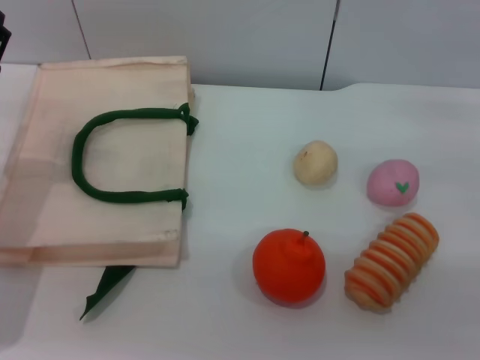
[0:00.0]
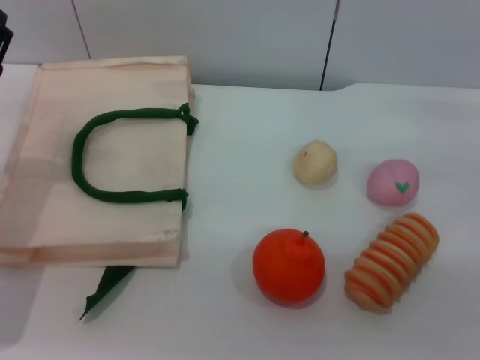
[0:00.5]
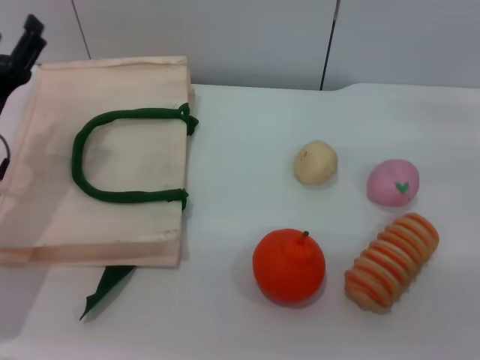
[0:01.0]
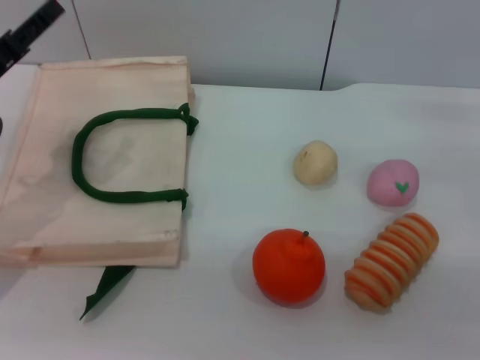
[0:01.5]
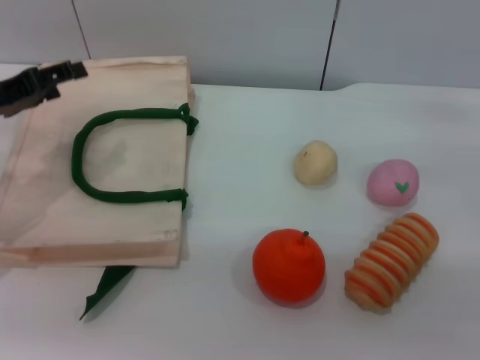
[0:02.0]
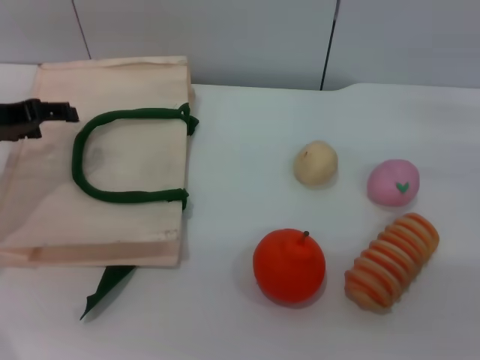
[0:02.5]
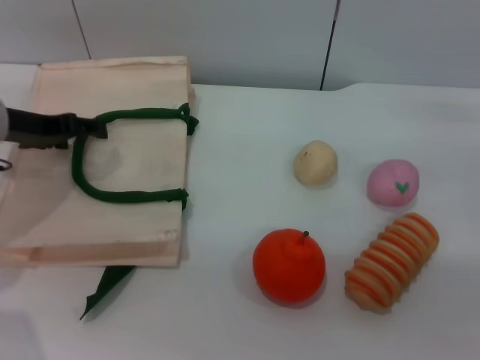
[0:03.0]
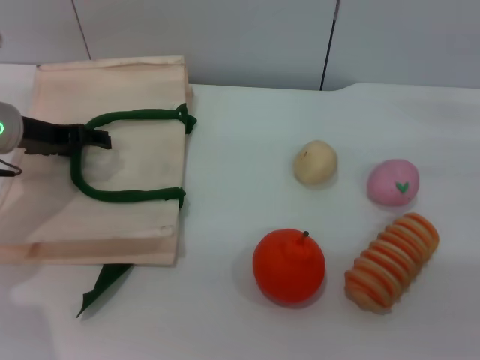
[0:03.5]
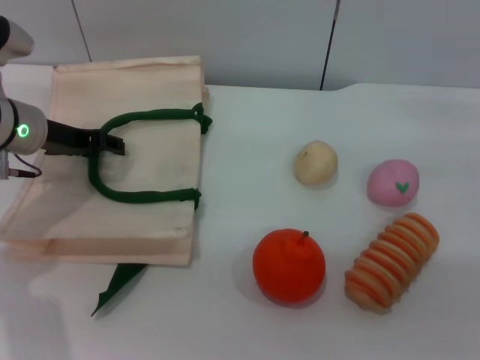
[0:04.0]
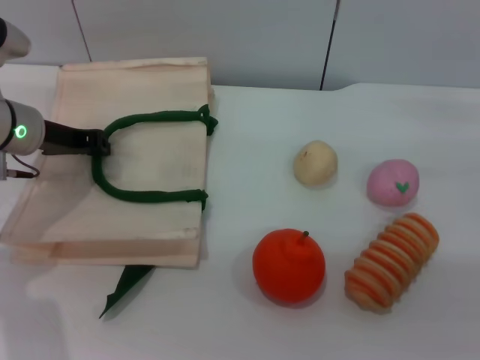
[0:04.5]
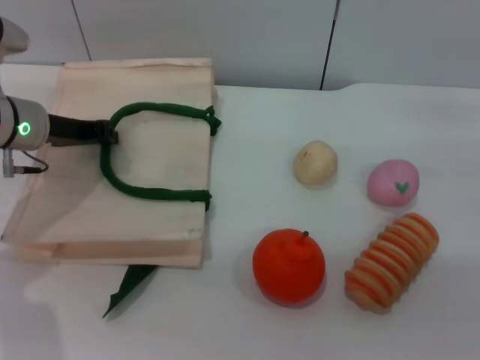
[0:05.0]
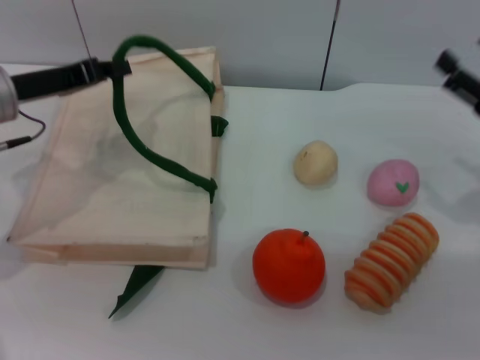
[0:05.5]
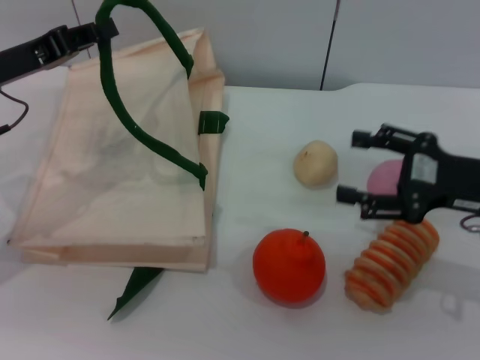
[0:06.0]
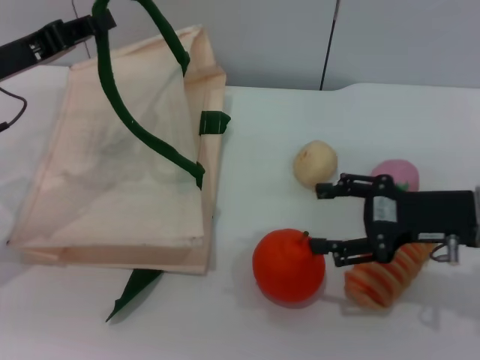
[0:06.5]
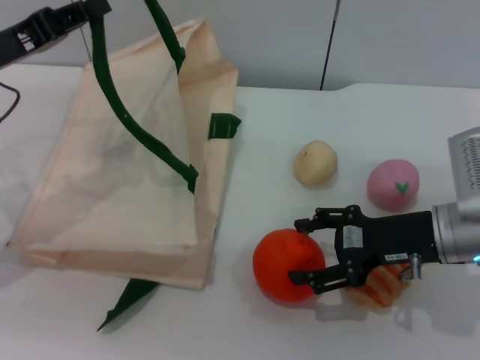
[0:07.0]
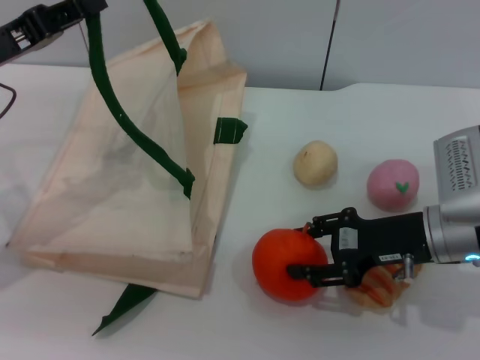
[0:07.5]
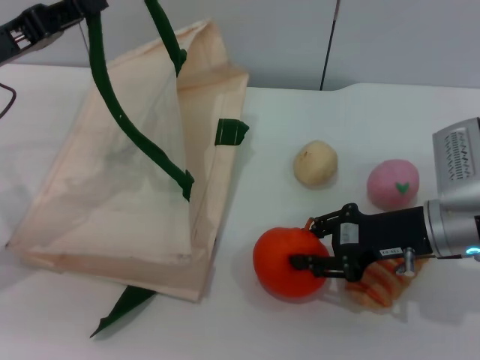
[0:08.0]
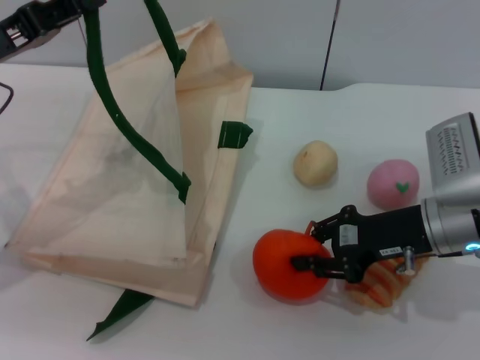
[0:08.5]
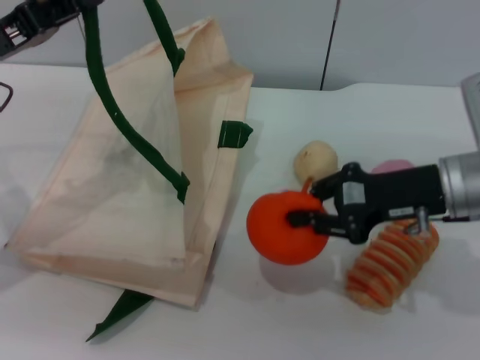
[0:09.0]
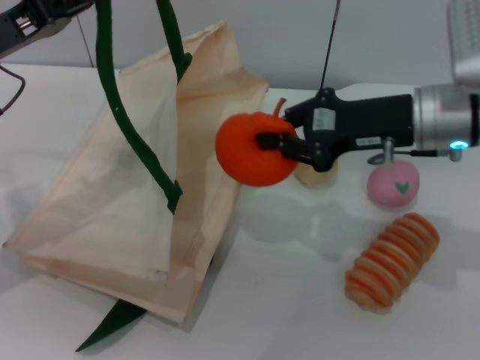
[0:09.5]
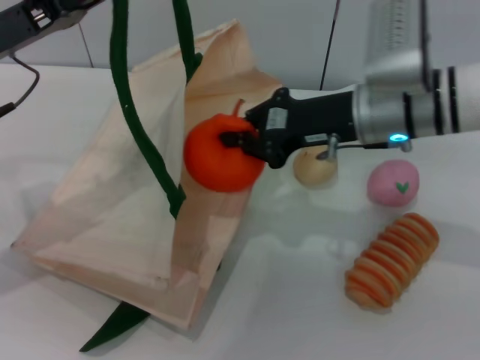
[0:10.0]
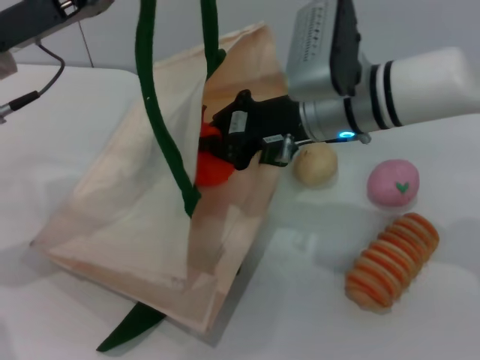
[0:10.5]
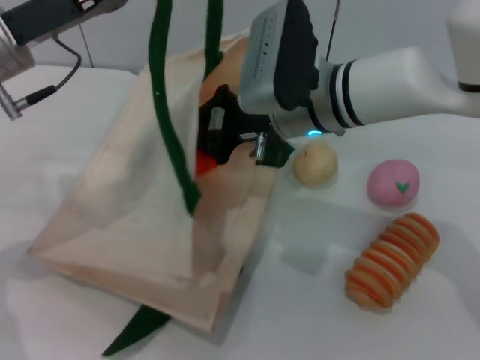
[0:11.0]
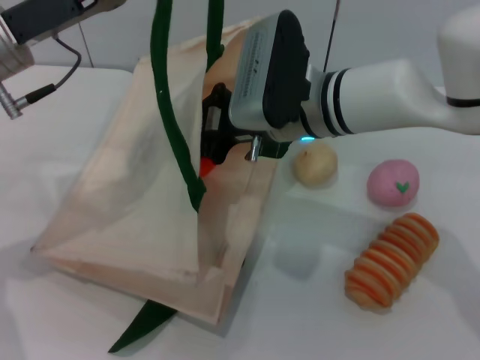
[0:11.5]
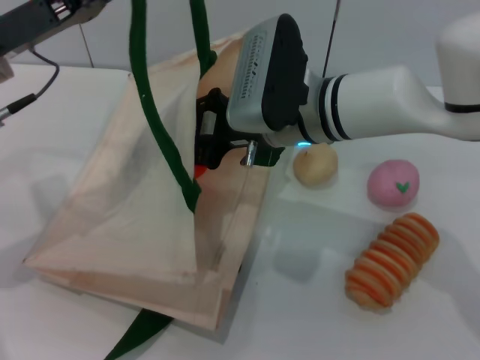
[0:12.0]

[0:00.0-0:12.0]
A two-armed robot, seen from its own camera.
Task of the whole recording: pick up the orange and peach from the table and place it in the white handbag.
Step, 0.0 to 5.5 s: Lift the woven bag with the left gripper to open it.
Step, 6.0 to 9.0 s: Pick up the orange with the right gripper.
0.0 to 2.0 s: The left gripper travels upward by roughly 5 cm.
2.0 to 4.0 s: The left gripper heads to the right and forward, covering some 10 cm.
4.0 to 6.0 s: The left gripper changes place by roughly 5 cm, and closes its fingers. Meanwhile the right gripper moves to the left, roughly 5 cm.
6.0 to 8.0 s: The right gripper is displaced to the left by approximately 5 cm, and closes its fingers.
8.0 to 10.0 s: The right gripper shifts some 15 cm to the left, upward and forward, and closes up.
10.0 to 12.0 s: The right gripper moves to the left, approximately 10 cm.

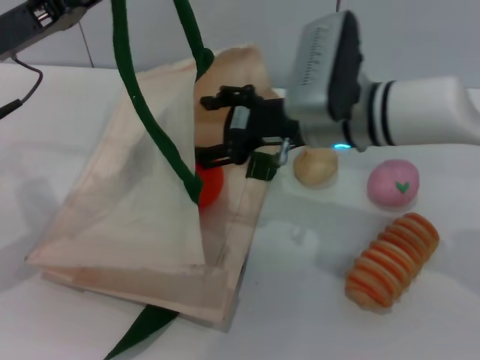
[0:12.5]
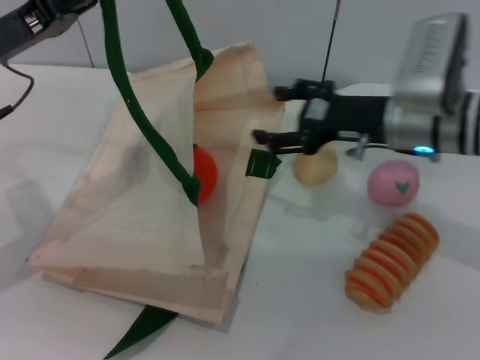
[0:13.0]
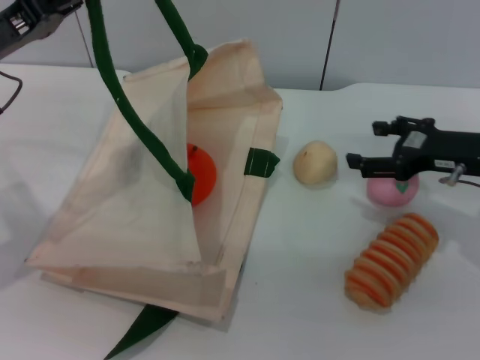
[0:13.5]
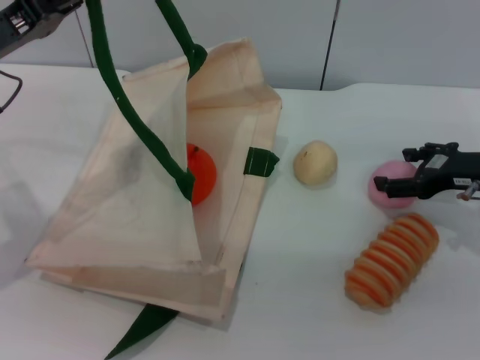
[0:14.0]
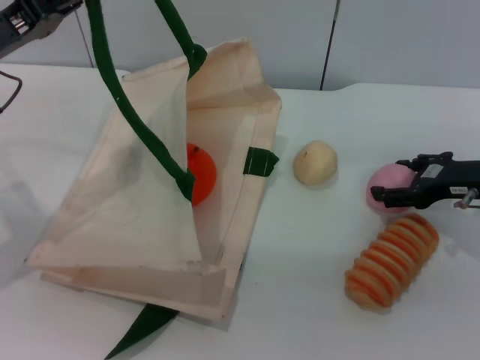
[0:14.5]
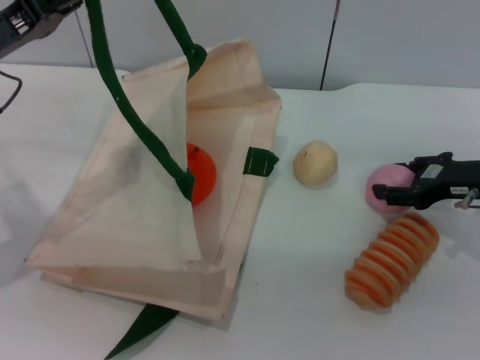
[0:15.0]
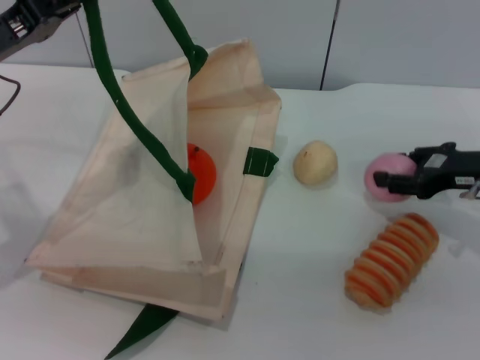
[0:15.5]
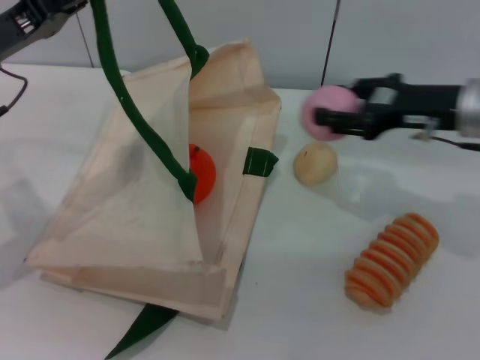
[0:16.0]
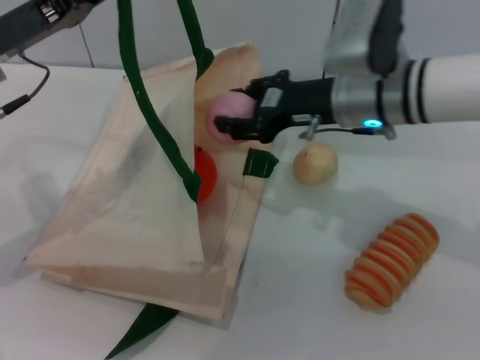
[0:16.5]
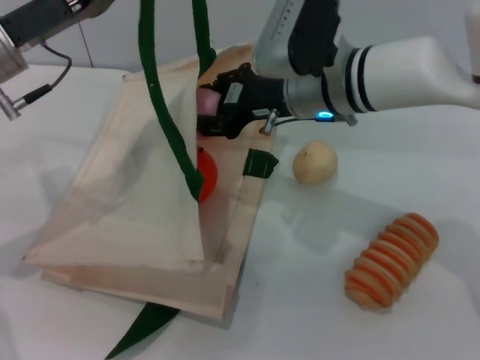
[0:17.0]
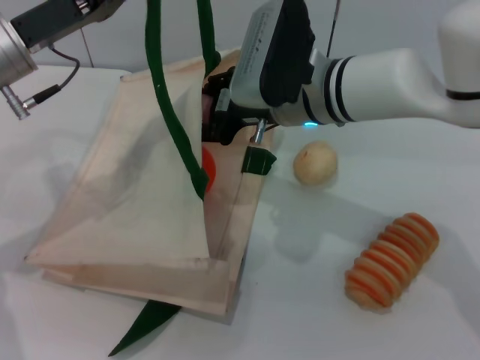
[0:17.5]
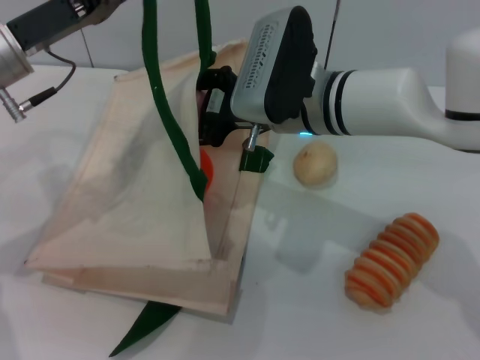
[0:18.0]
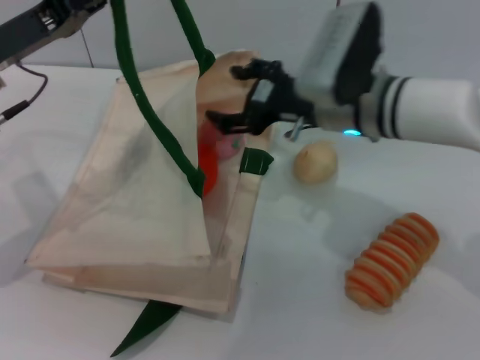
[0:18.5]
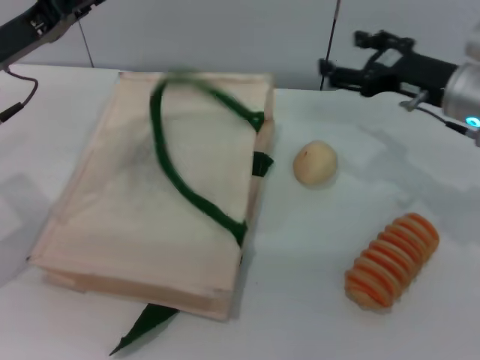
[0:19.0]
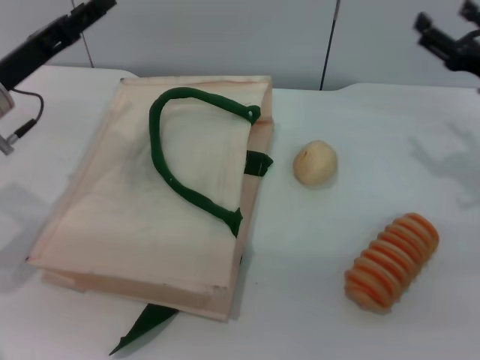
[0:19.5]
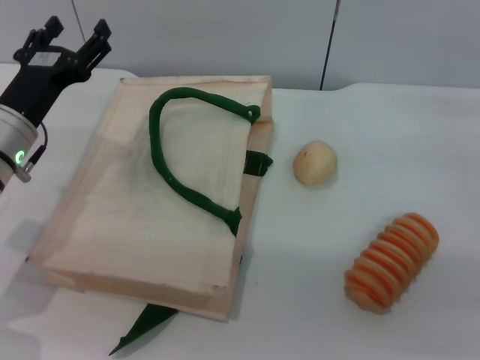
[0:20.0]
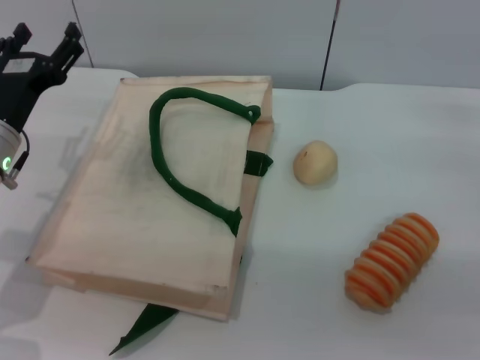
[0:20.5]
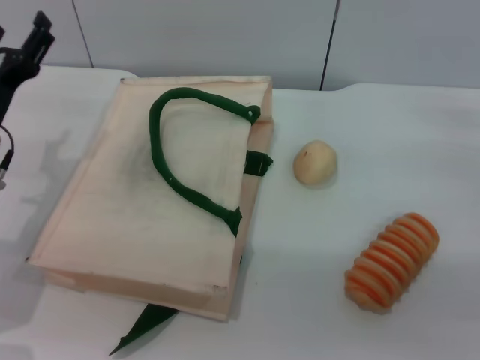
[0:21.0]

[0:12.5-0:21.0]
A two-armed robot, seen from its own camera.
Task of the whole recording: pick up the orange and peach from the table and place it in the white handbag.
Step, 13.0 to 15.5 s: Pick up the peach with the right gripper.
Step, 16.0 to 18.5 s: Place the peach into the woven bag with the right gripper.
12.5 to 14.5 s: The right gripper heads to the right, covering some 20 cm.
14.5 to 16.5 s: The right gripper travels to the left by approximately 15 cm, and closes.
16.5 to 19.0 s: The right gripper moves to the right, roughly 10 cm, and opens.
19.0 to 21.0 s: The left gripper goes some 10 cm downward, and opens. Meanwhile the right gripper moves to the right, backward and downward, roughly 15 cm.

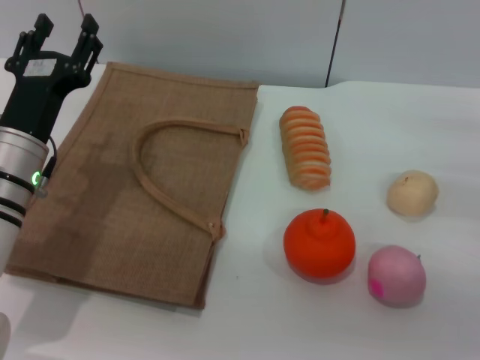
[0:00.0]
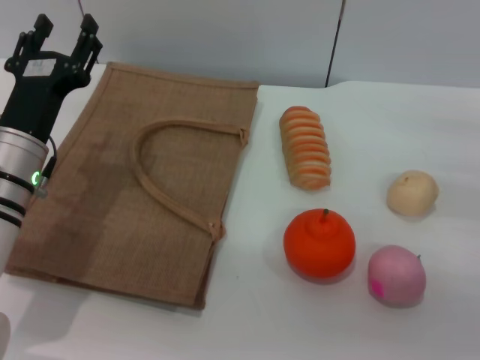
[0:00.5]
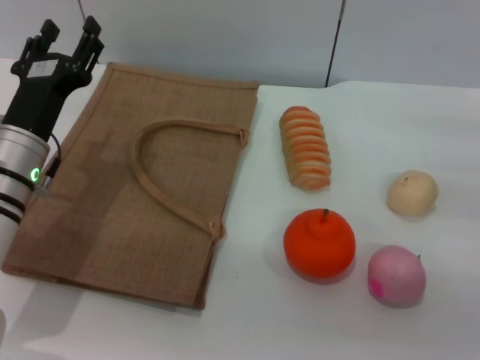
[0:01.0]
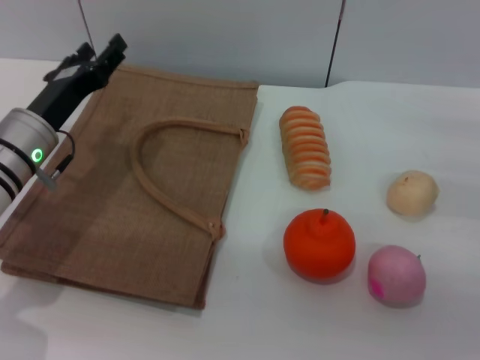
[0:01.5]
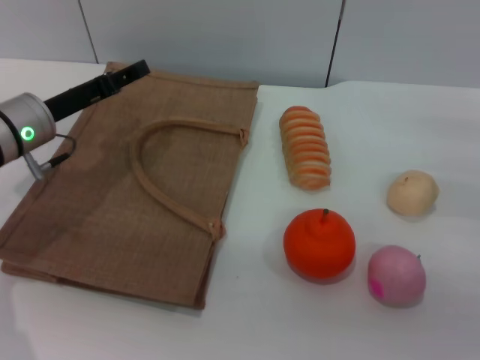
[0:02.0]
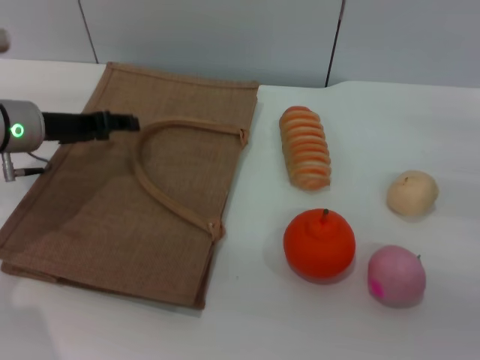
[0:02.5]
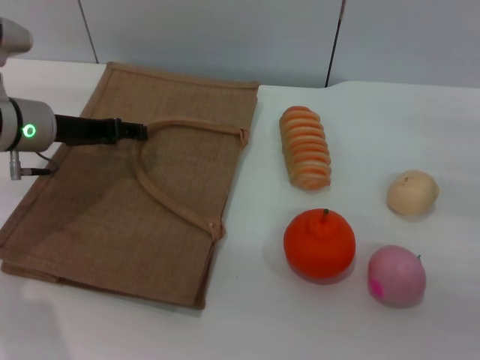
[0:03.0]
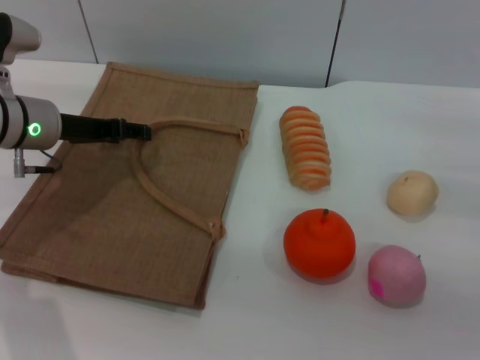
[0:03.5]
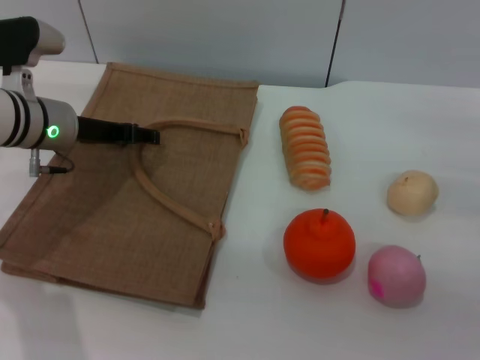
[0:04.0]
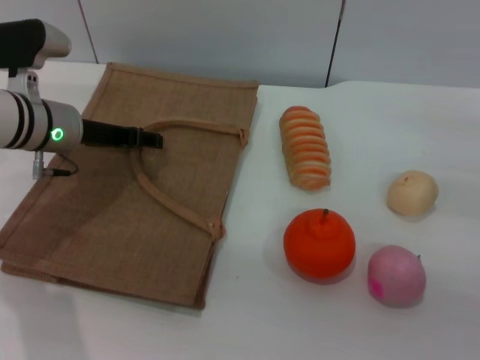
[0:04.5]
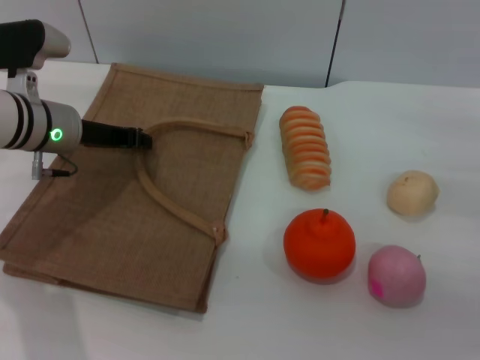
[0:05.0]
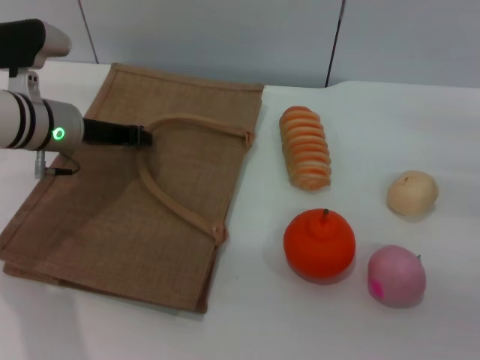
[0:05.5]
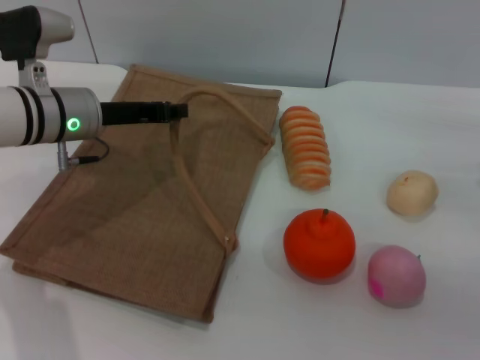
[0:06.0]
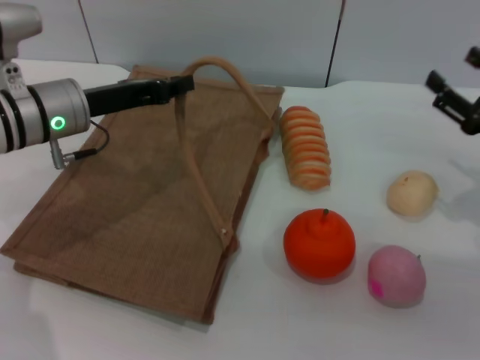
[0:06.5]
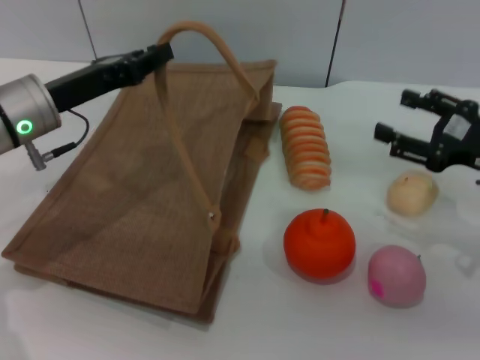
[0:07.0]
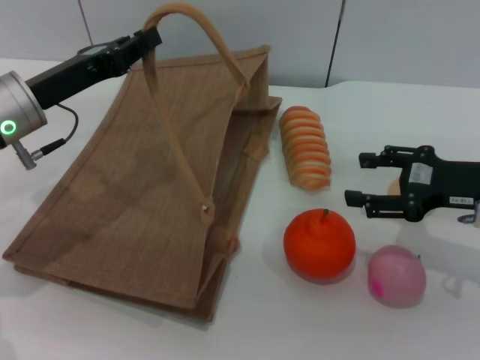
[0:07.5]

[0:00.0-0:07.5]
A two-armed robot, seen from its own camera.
Task of the whole recording: pick up the orange and peach from the table and place it in the brown handbag.
Step, 0.0 to 6.0 s: Lift the woven bag with the left gripper to open it.
0.0 to 2.0 s: The left gripper is displaced forward by some 5 cm.
4.0 to 5.5 s: The left gripper closes.
5.5 to 7.5 s: The left gripper shifts roughly 5 cm backward. The right gripper goes about 5 cm to the left.
